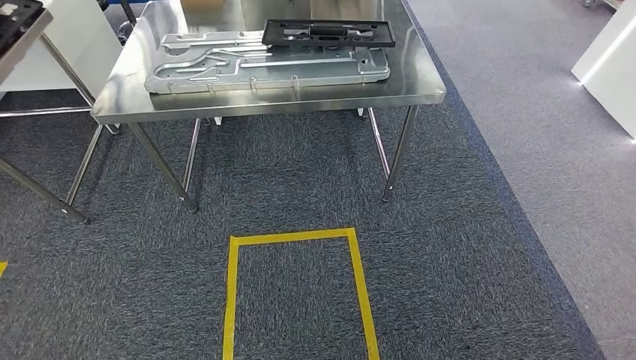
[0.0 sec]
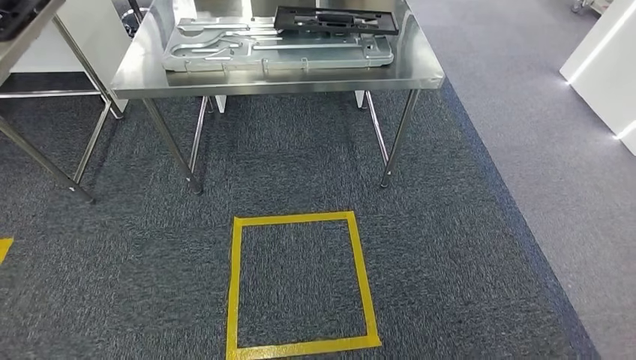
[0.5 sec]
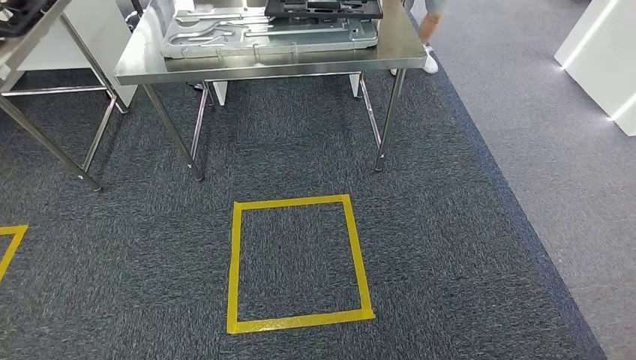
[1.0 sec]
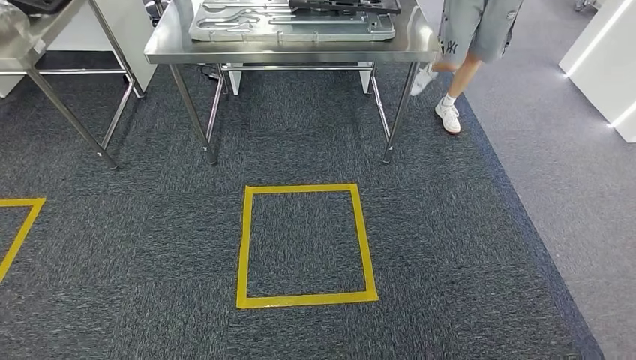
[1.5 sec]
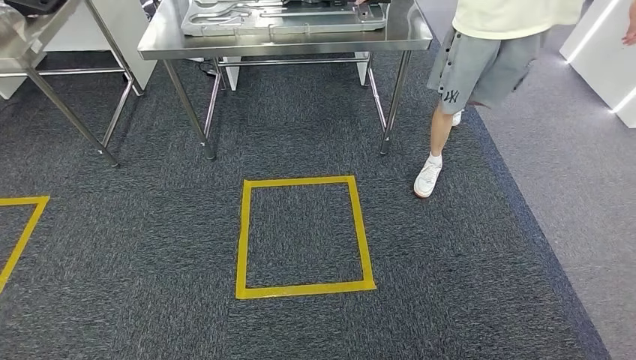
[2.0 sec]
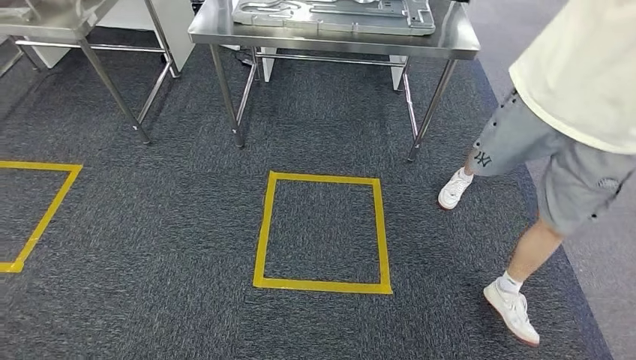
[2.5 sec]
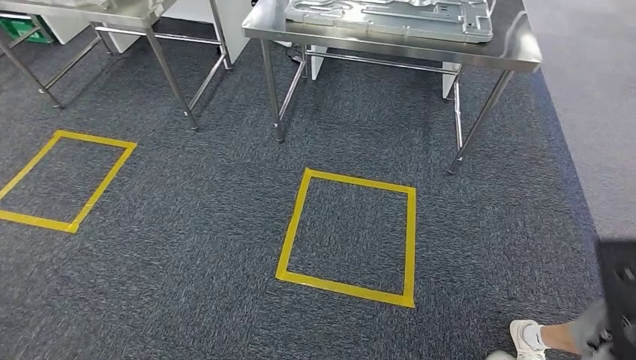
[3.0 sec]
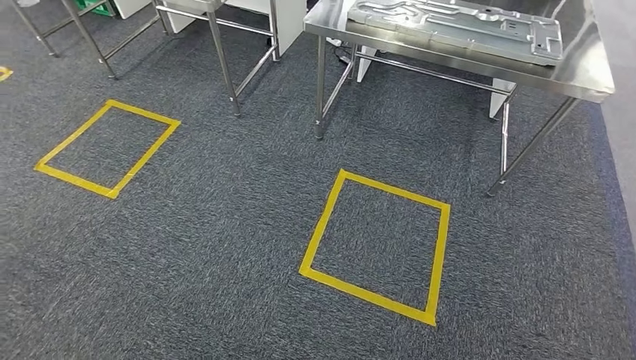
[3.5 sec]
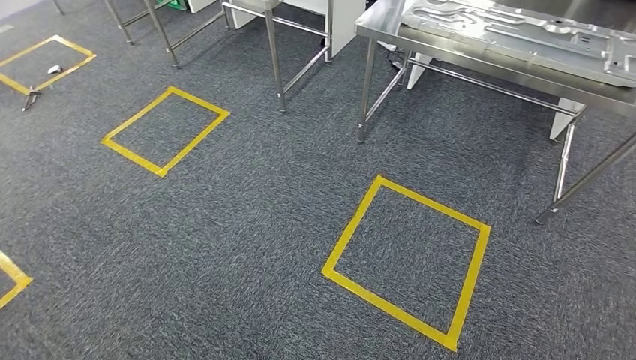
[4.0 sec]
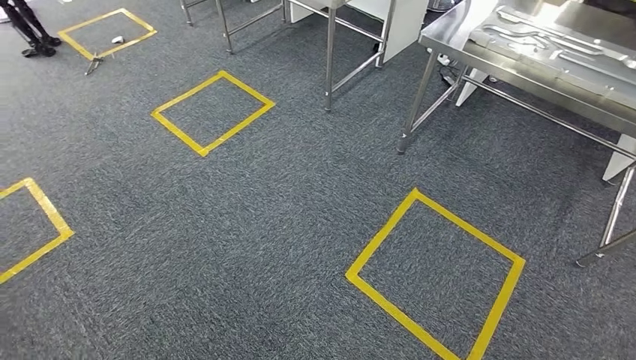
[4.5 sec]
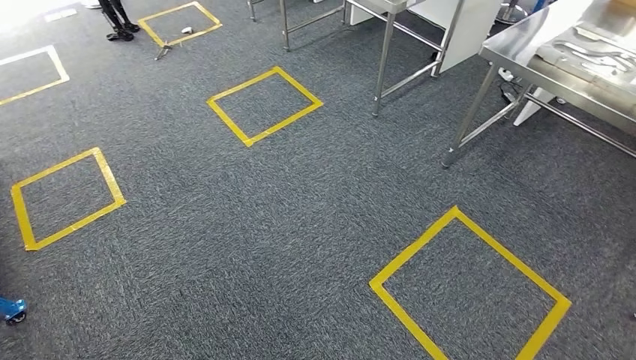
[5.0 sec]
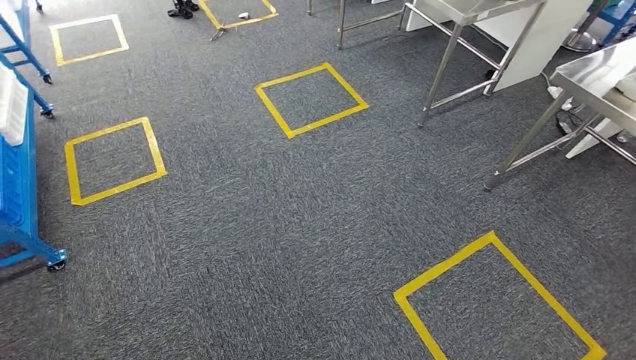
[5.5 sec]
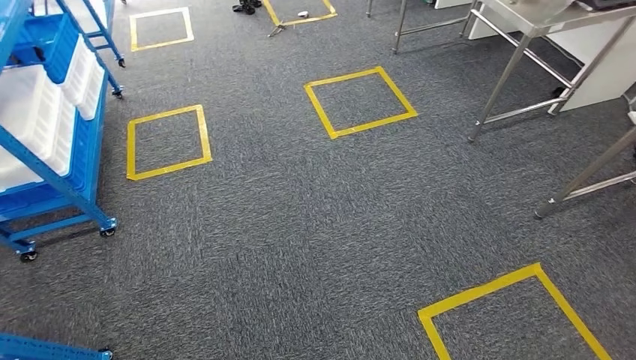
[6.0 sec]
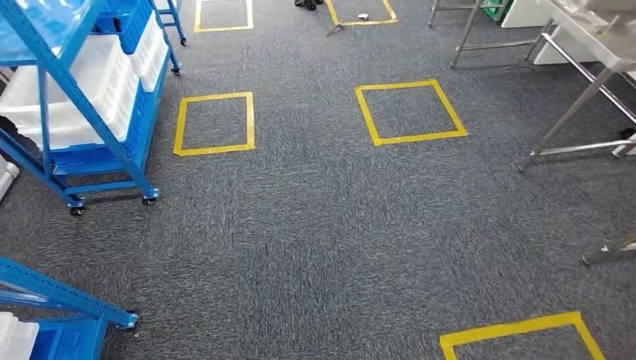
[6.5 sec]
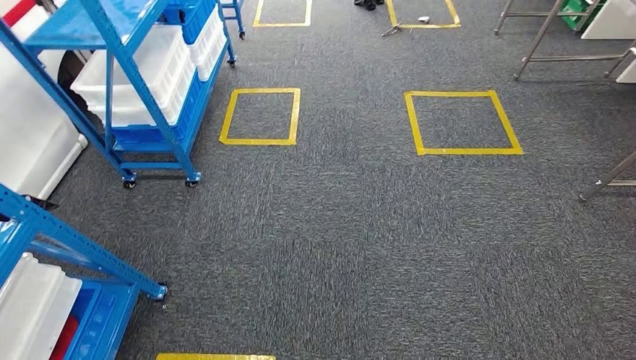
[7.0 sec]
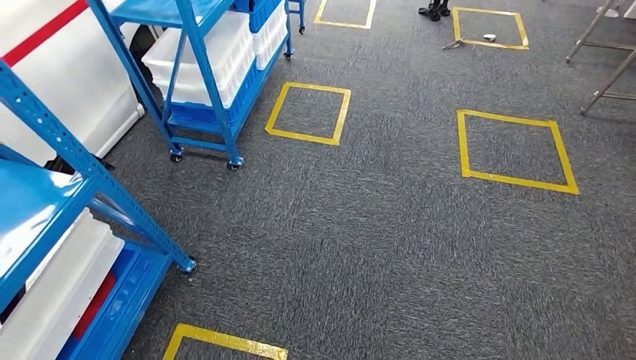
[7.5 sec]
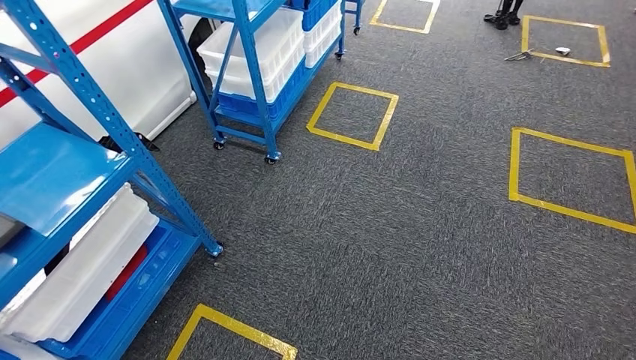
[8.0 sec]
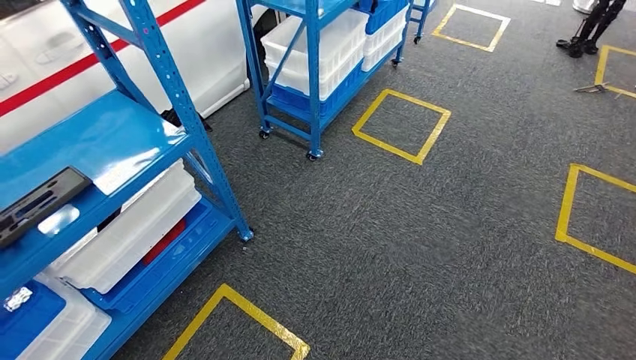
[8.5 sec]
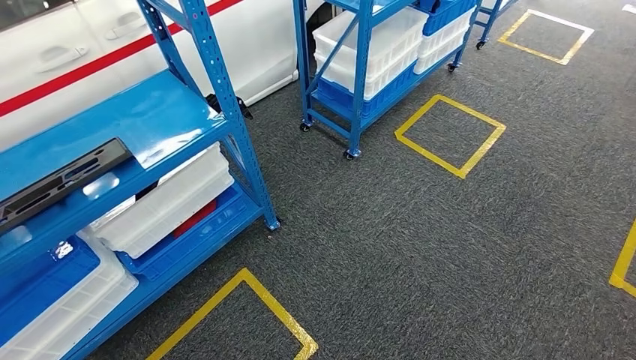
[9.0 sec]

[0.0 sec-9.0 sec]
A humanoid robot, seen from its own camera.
Step, 0.5 sec to 9.0 sec: Move to the initial position of the shelf.

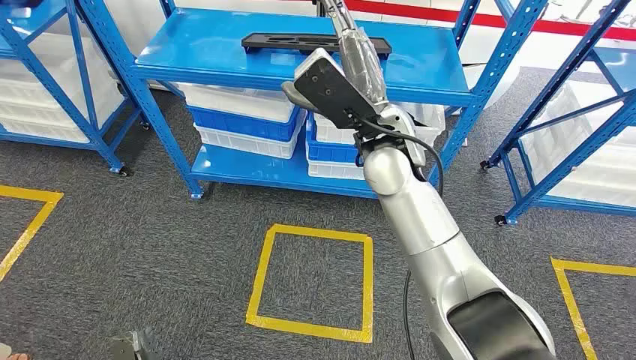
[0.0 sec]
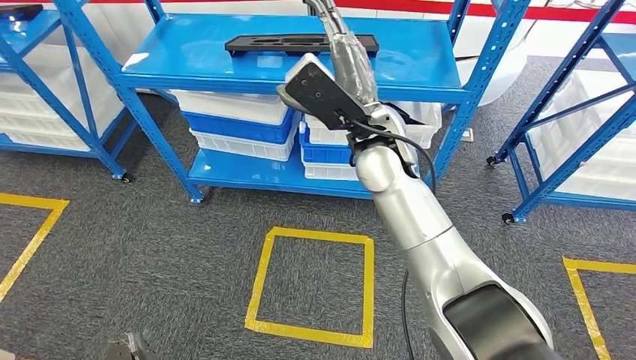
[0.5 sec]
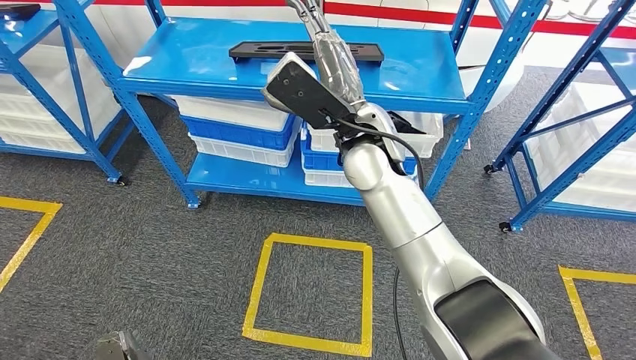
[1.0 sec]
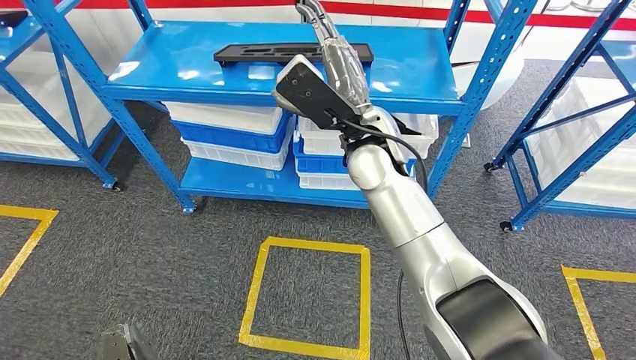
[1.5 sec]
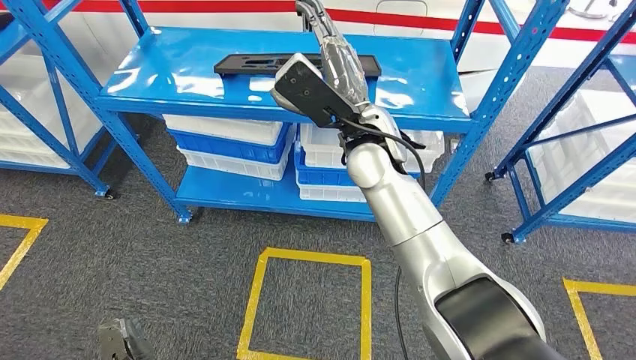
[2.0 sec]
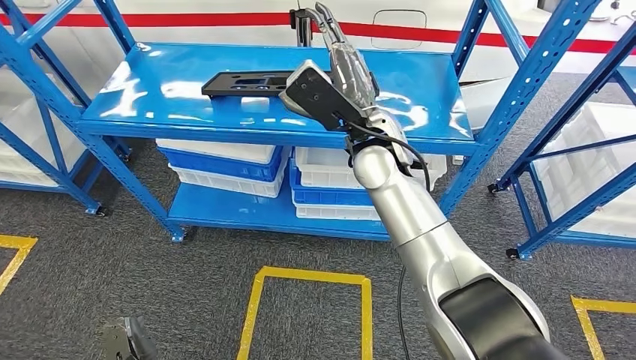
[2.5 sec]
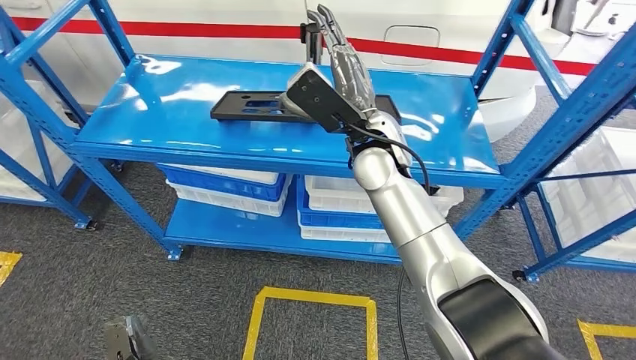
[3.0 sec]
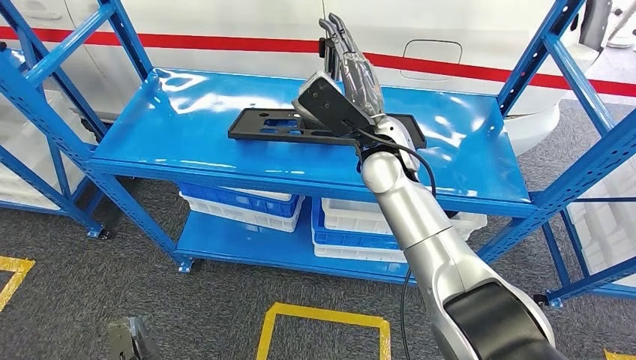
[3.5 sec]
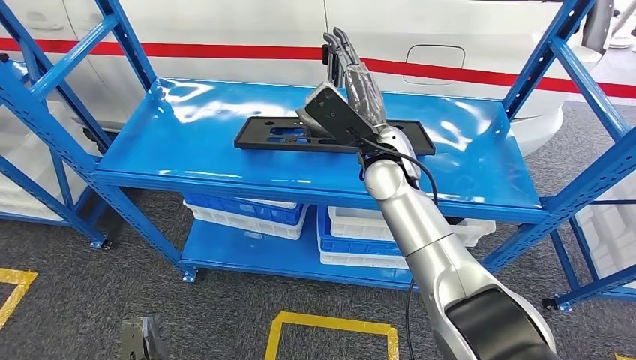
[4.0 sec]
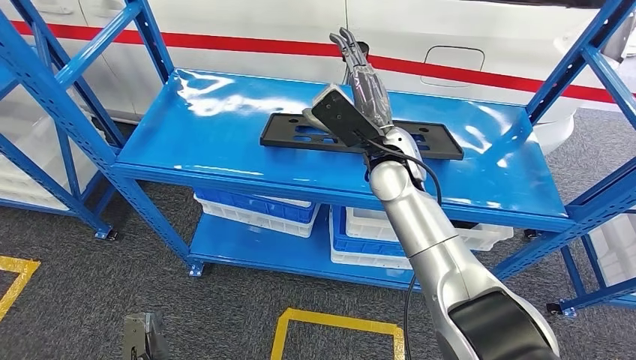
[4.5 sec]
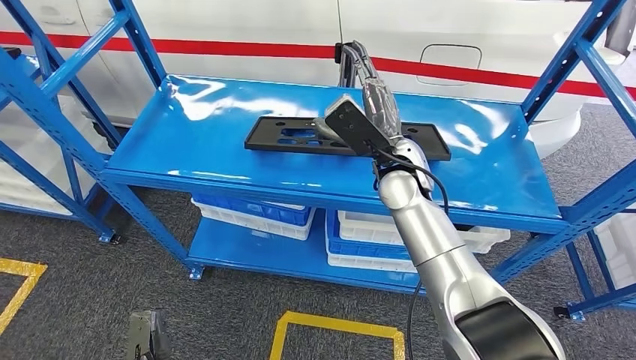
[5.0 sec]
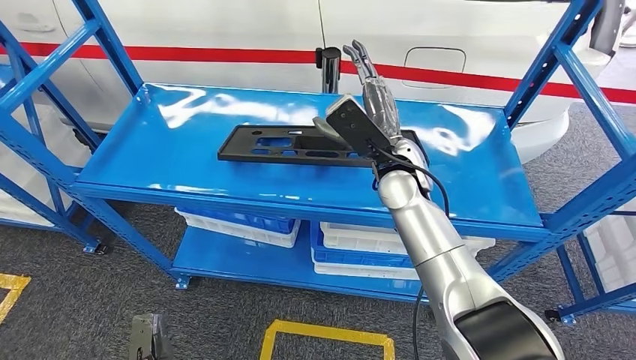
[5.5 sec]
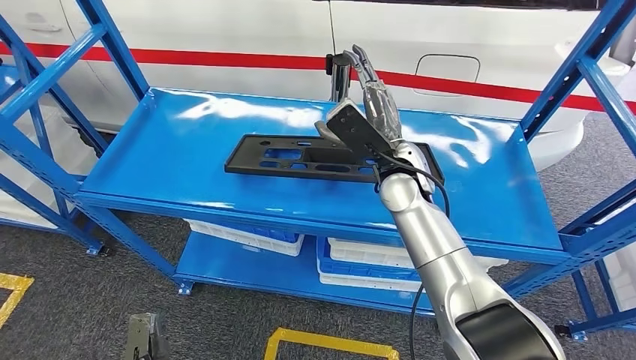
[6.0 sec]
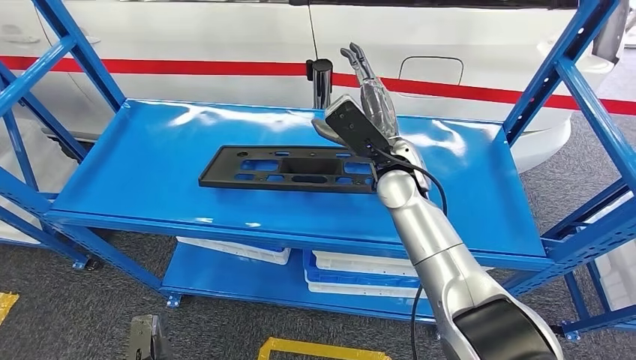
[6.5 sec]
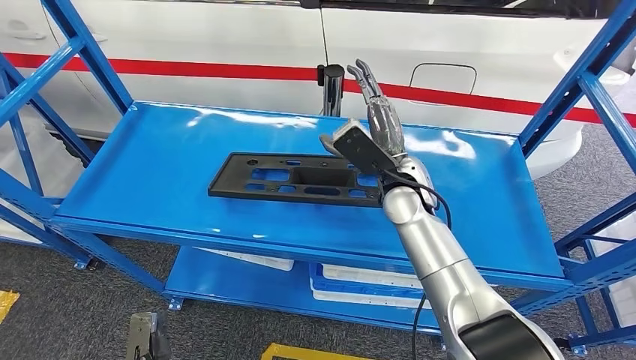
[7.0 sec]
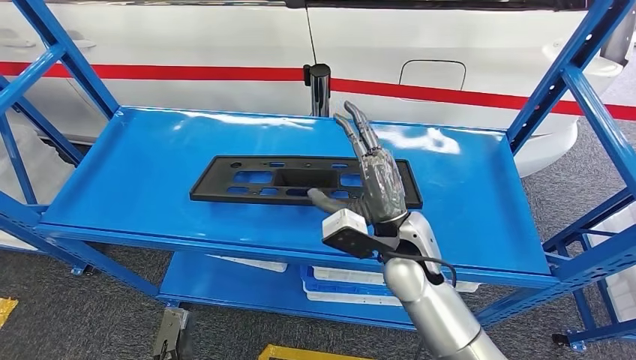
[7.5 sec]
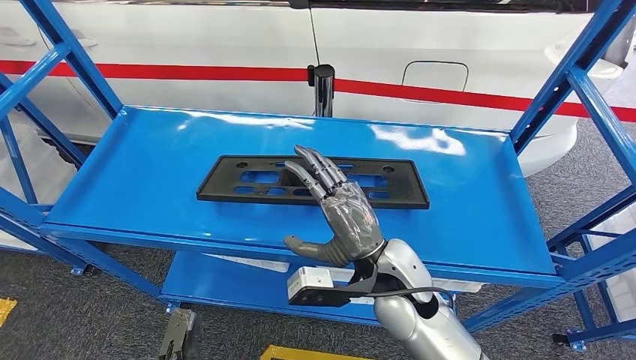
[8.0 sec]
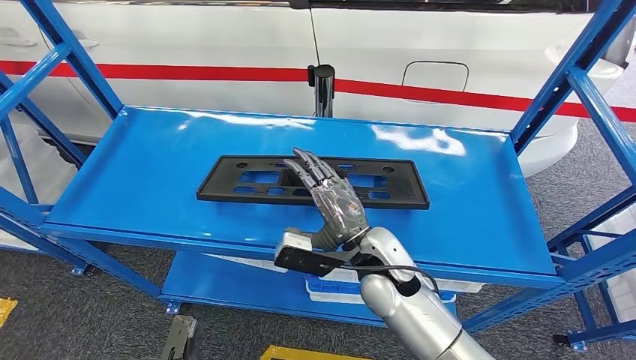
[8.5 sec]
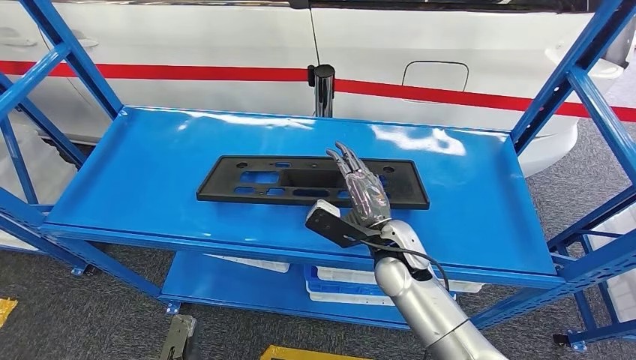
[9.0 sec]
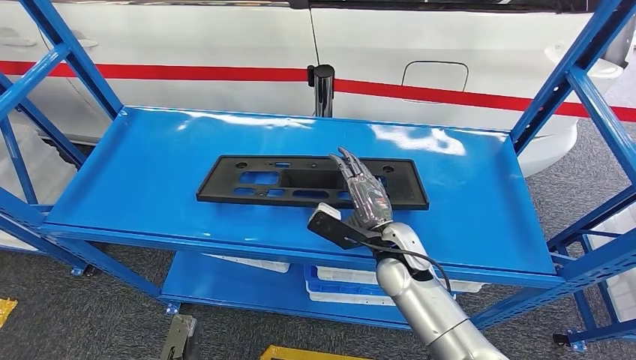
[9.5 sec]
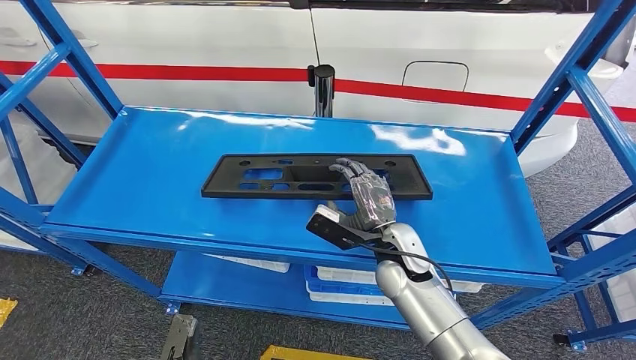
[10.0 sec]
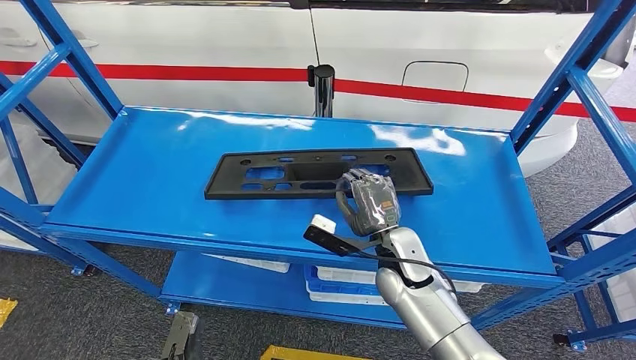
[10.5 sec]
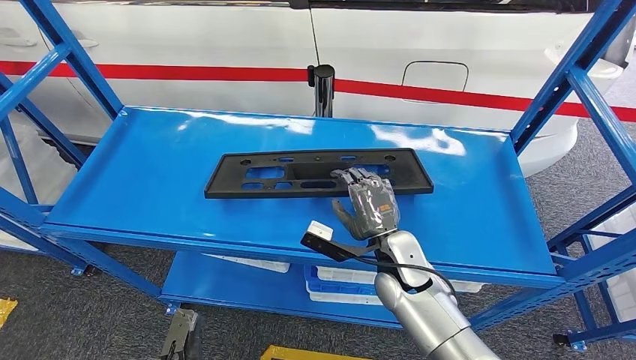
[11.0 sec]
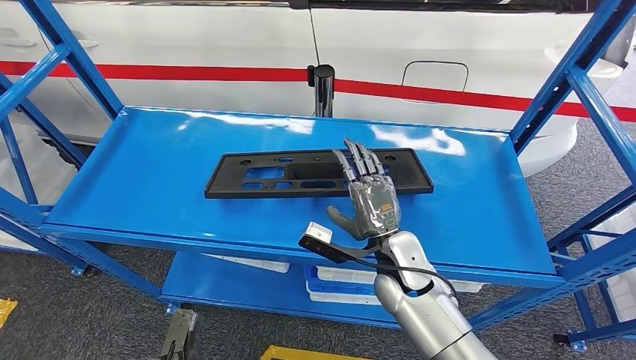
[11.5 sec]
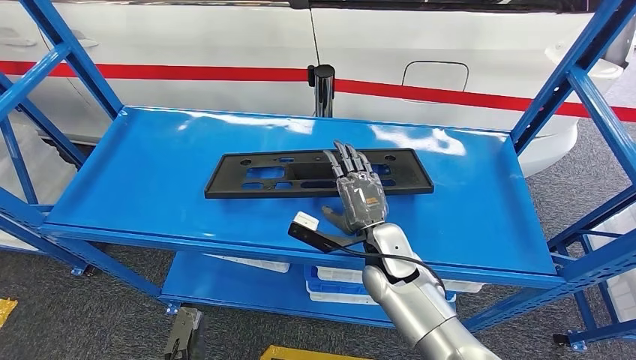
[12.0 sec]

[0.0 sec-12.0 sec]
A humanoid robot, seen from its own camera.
8.0 sec to 10.0 sec: The right hand moves forward and downward, approximately 10 cm.
10.0 sec to 12.0 sec: The hands make only small movements.
